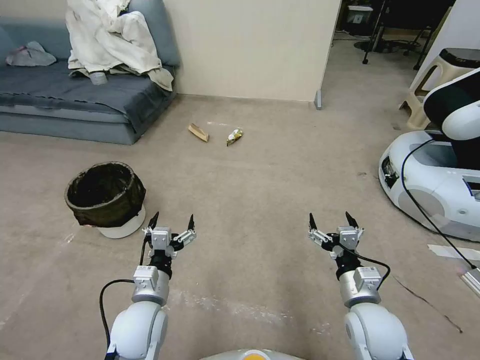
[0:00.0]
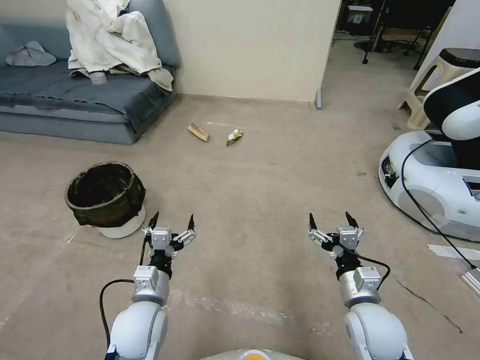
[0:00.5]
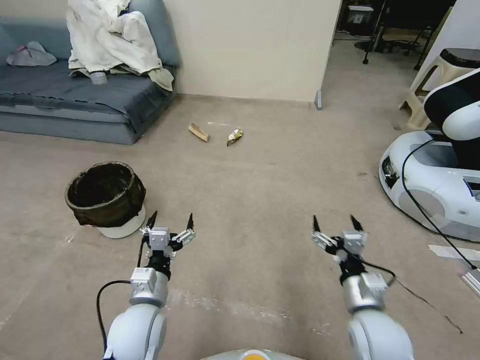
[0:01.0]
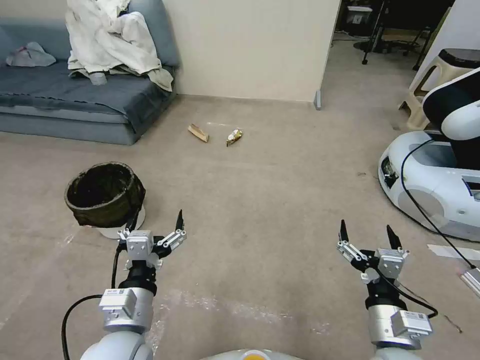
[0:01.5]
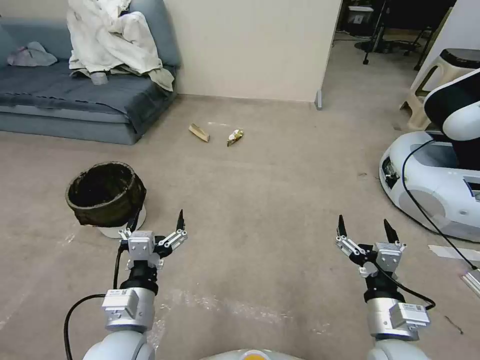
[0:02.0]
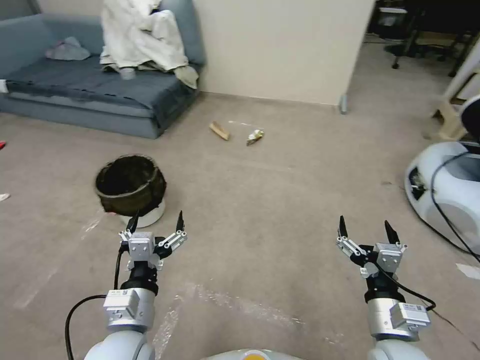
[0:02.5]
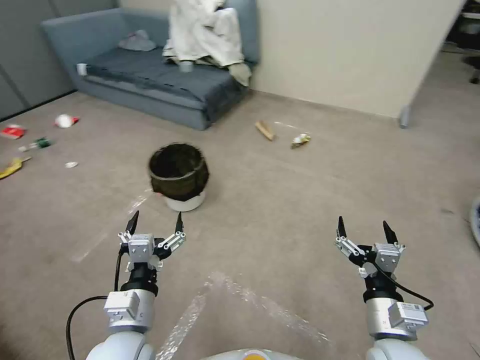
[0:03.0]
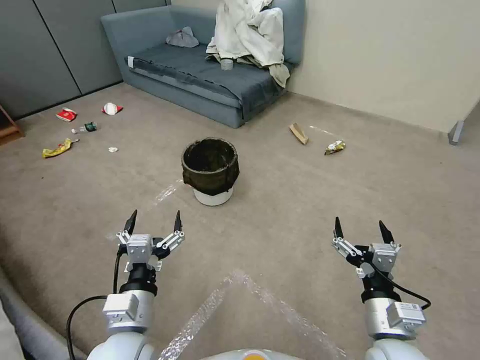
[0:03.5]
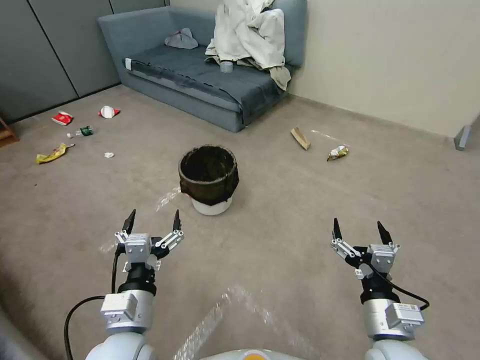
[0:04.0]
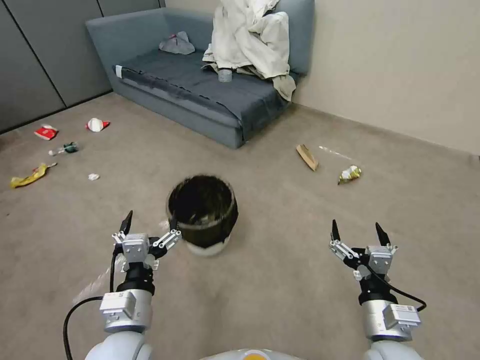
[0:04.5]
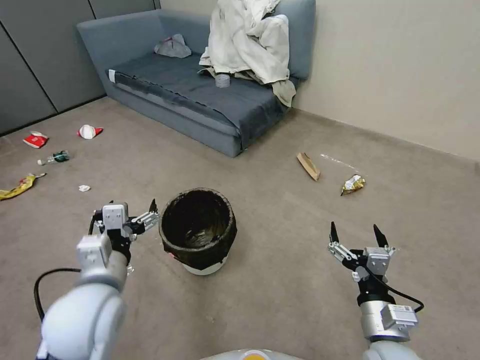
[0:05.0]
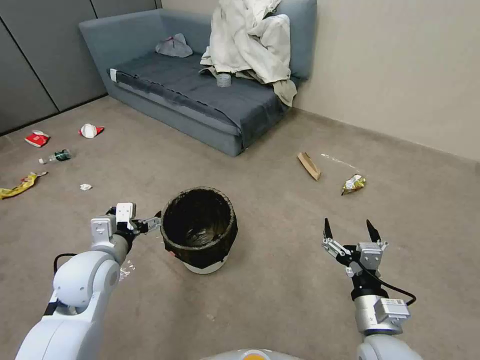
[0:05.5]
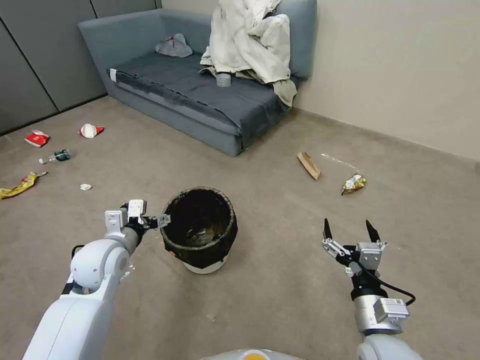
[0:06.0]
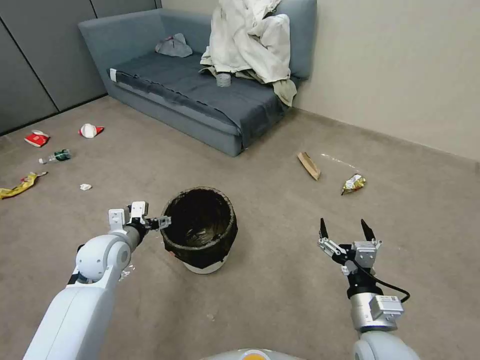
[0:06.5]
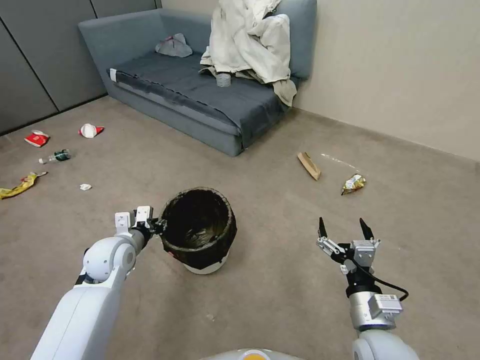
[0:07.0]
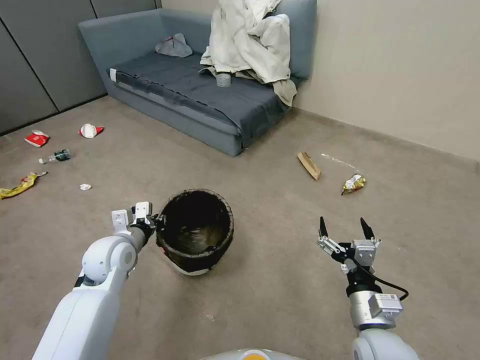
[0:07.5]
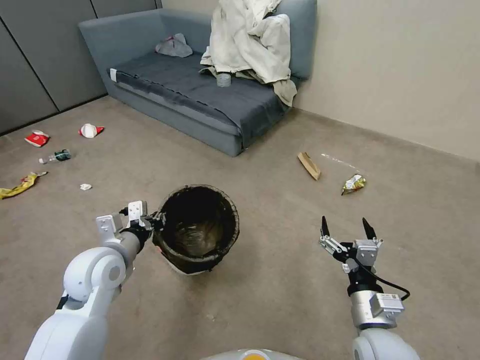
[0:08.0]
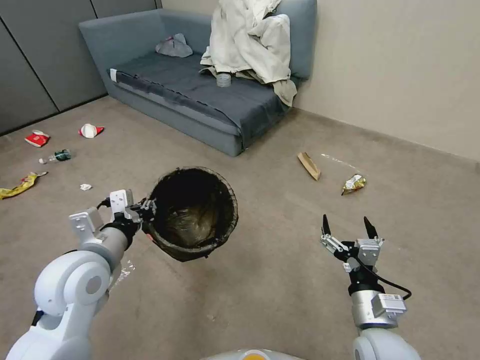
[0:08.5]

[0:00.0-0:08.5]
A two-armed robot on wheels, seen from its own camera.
Task of the whole recording: Pick up the trash can from the floor.
0:04.0 to 0:06.5: The left gripper goes approximately 20 cm forward and to the left.
0:06.5 to 0:08.5: The left gripper is displaced upward and backward by some 15 cm, and closes.
